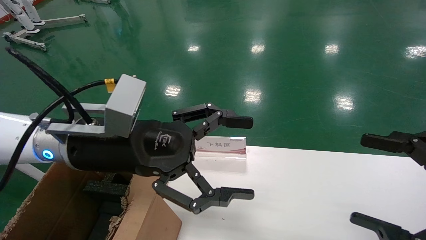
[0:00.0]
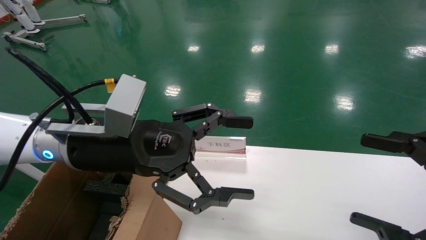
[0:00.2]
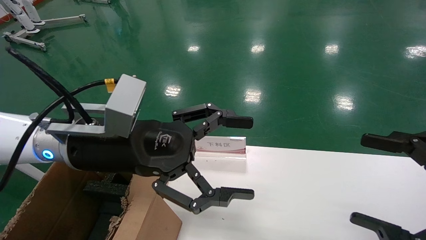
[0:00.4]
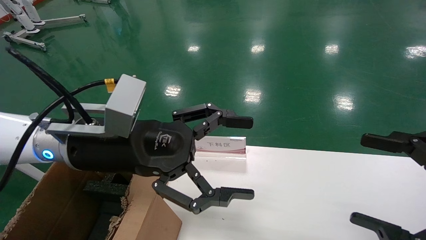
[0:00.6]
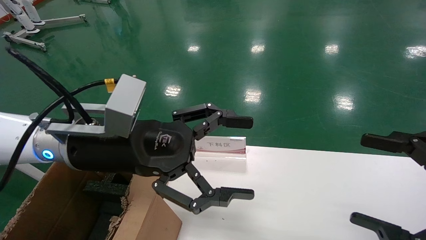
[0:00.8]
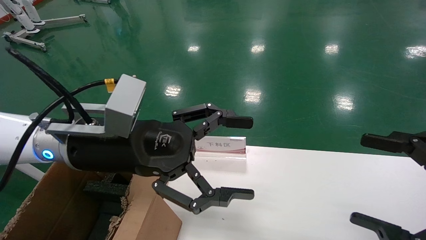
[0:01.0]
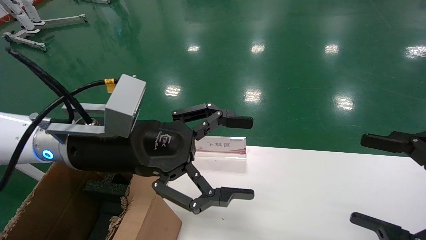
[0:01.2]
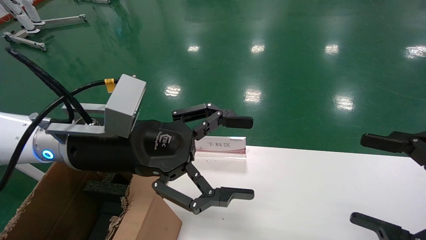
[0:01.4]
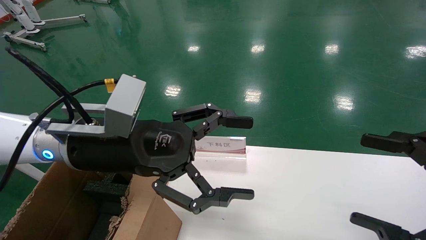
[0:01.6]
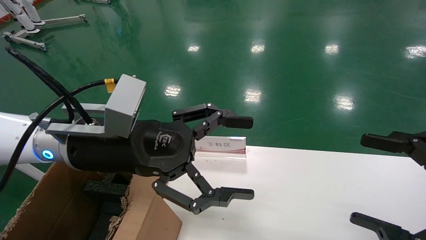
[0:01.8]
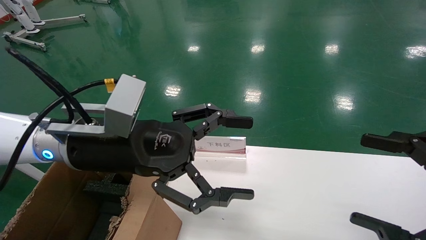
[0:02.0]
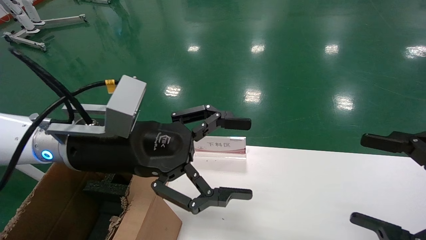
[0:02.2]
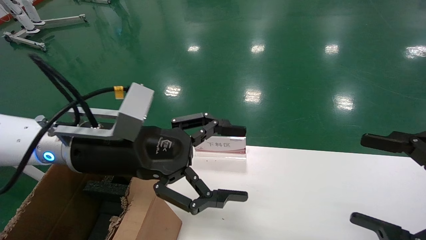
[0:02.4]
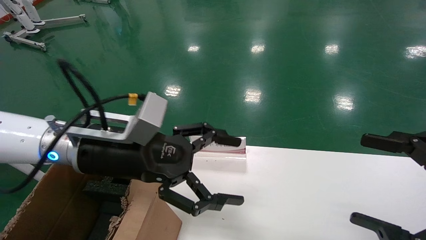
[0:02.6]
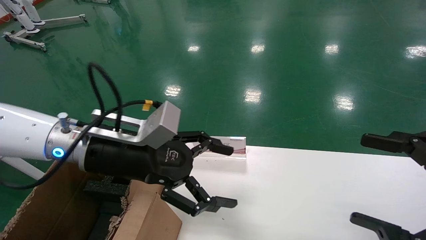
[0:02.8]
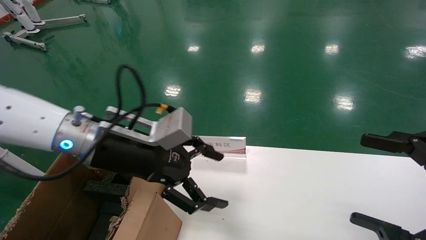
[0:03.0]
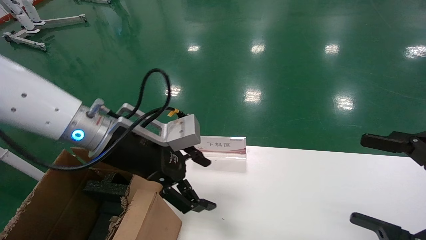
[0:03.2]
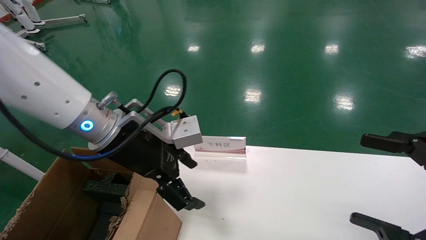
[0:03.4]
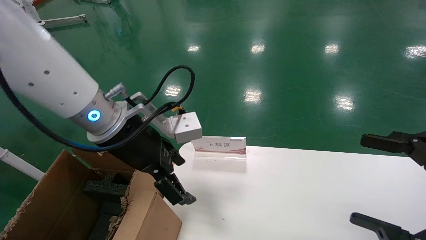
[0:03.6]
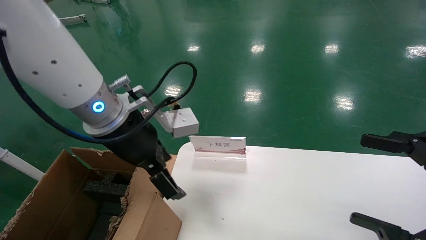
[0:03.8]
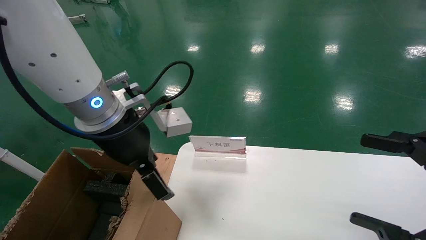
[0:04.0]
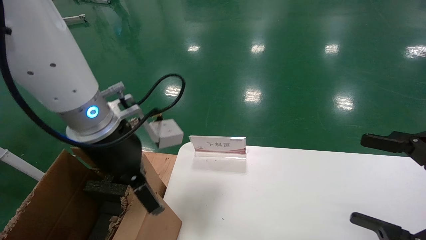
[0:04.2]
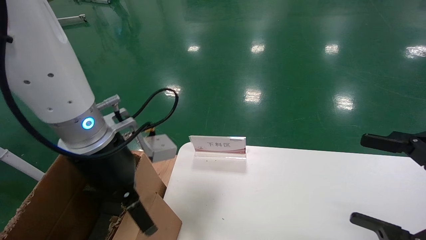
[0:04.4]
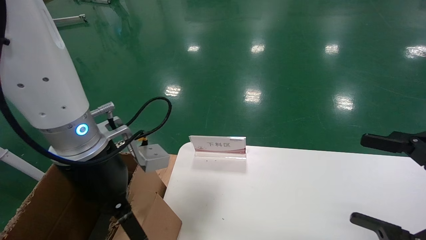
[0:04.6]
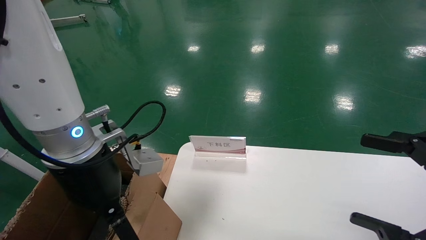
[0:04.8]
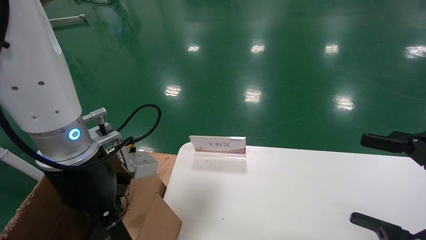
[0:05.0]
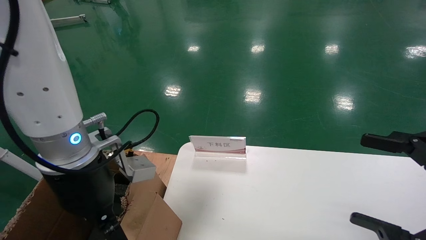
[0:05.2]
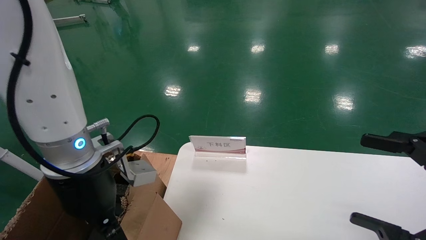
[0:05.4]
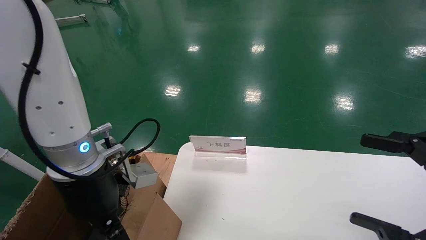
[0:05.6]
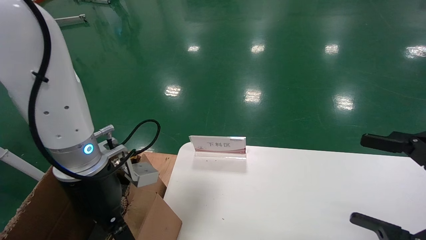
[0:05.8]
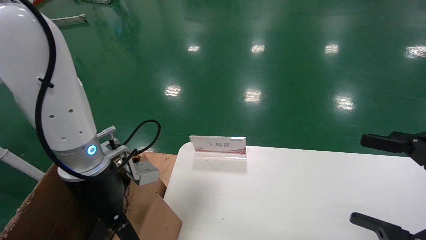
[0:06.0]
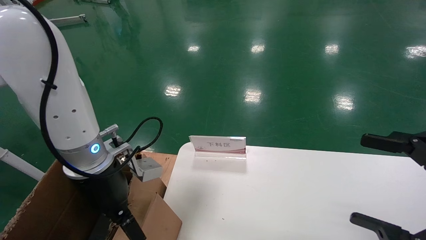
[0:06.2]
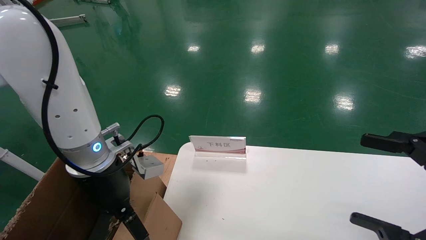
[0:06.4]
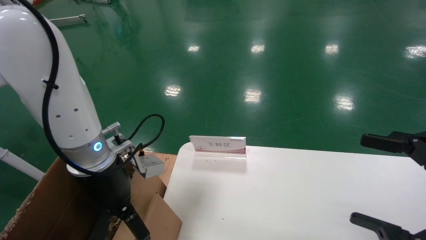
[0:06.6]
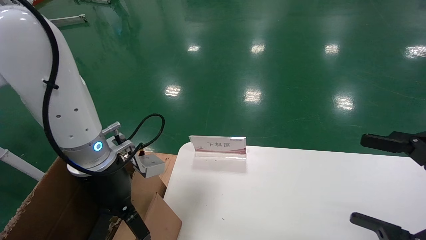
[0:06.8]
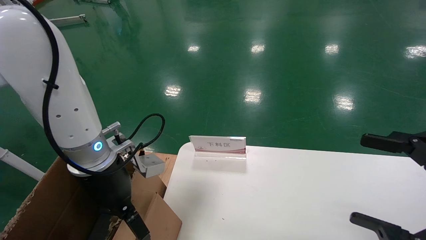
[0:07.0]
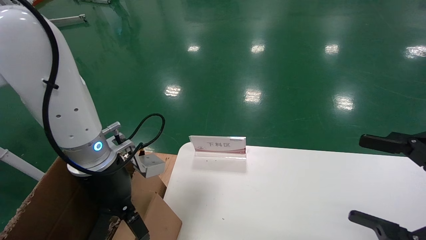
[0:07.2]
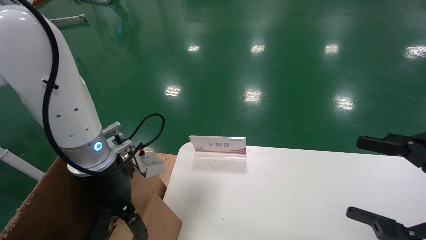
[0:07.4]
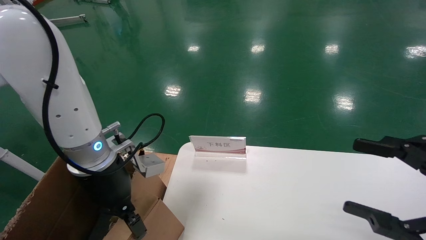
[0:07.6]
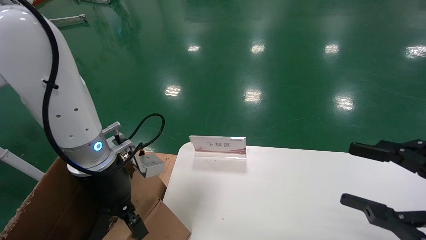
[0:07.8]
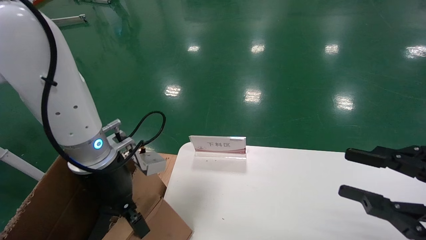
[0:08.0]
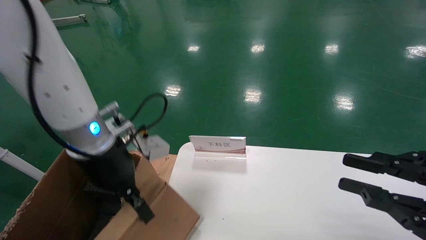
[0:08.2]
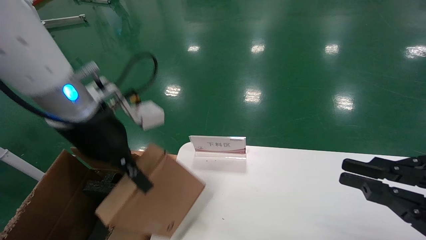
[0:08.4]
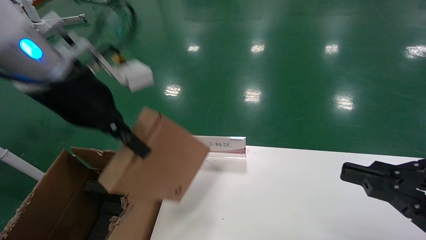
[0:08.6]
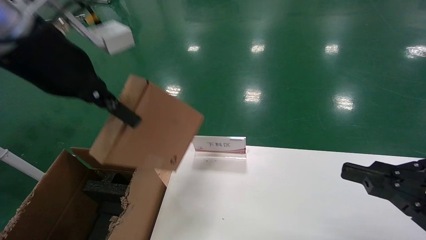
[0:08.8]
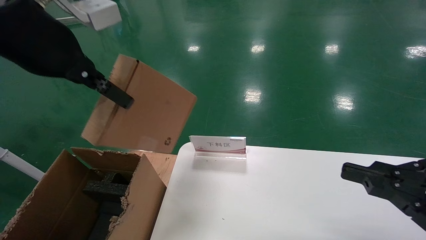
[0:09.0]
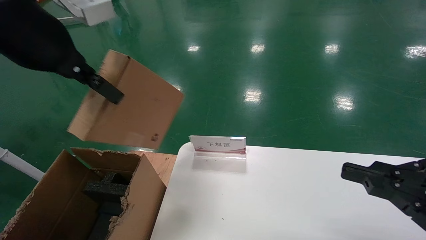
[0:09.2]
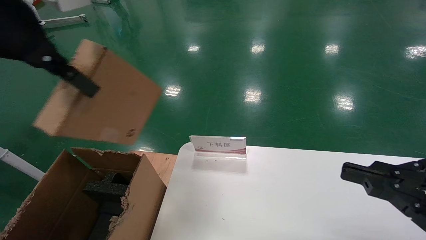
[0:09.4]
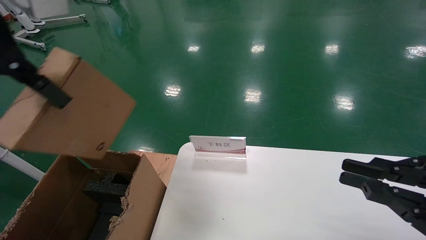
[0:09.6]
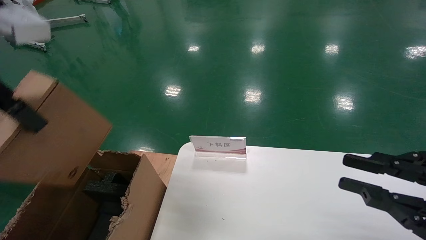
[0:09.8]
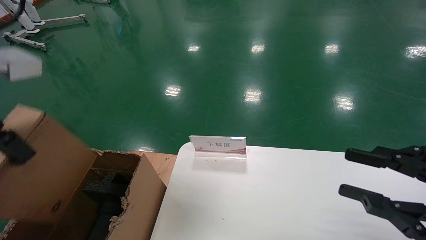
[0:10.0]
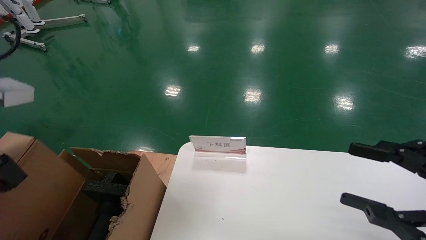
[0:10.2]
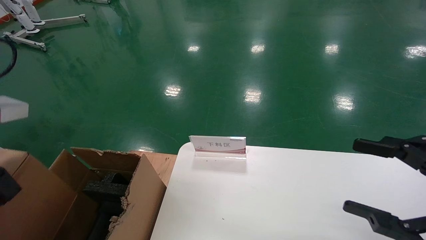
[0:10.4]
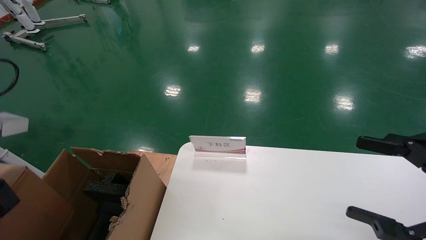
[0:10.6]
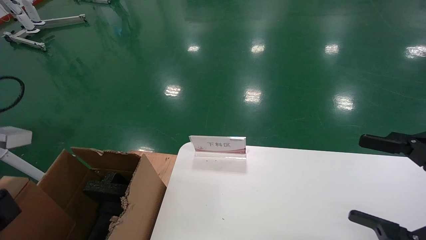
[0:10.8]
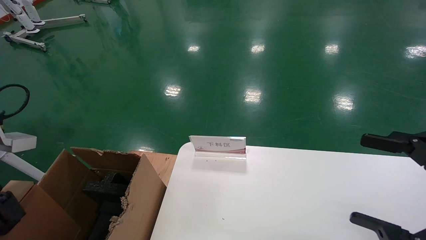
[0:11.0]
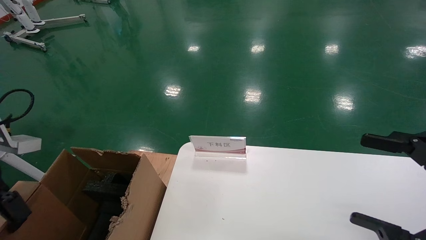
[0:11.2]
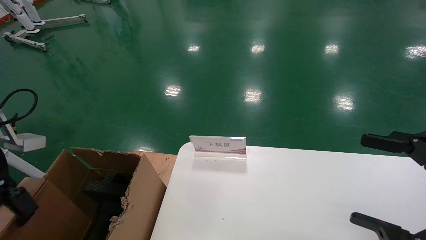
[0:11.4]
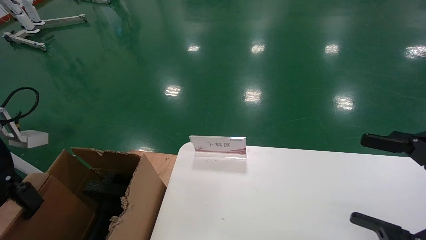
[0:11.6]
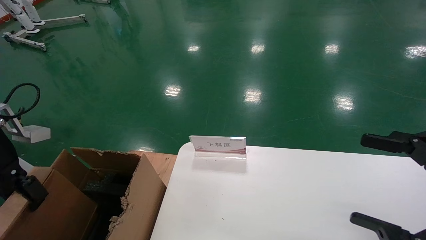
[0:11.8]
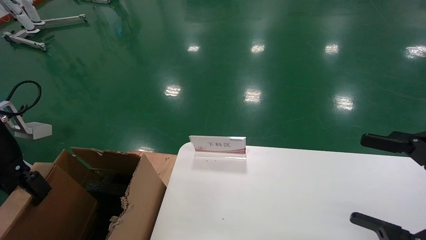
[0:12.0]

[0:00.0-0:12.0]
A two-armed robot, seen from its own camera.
Task of the whole recording: pick up the small cardboard box and load it into the large cardboard box.
Step, 0:00.0 to 0:07.6: Grasp the paper box.
0:00.0 to 0:01.6: The two grippers keep their place.
0:04.4 to 0:06.0: The left gripper heads downward, covering approximately 5 cm.
0:06.0 to 0:07.6: The left gripper closes its fingers.
0:07.6 to 0:09.0: The right gripper closes. Meanwhile the left gripper moves upward, approximately 20 cm, and closes up.
0:09.0 to 0:10.4: The left gripper moves to the left, downward and backward, about 15 cm. The right gripper opens up.
0:10.4 to 0:12.0: The left gripper shifts some 15 cm to the left, downward and forward, while the right gripper opens up.

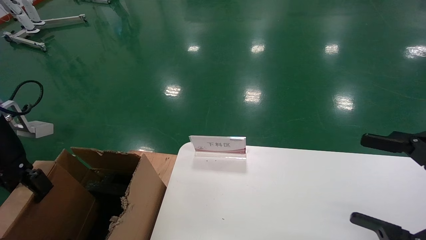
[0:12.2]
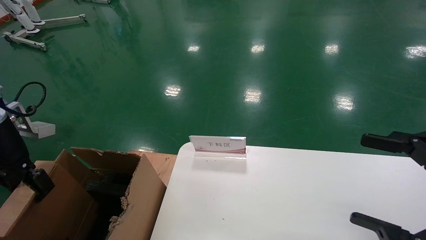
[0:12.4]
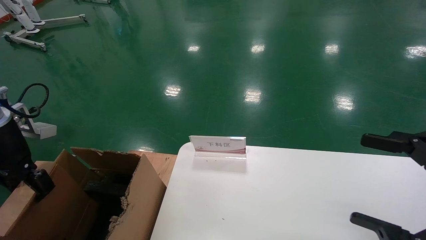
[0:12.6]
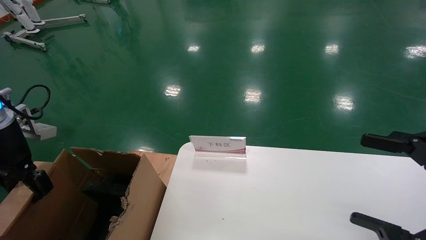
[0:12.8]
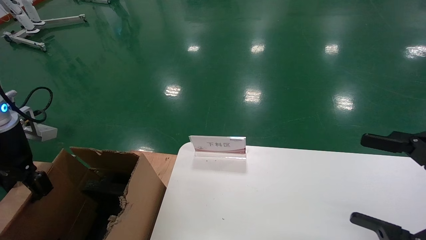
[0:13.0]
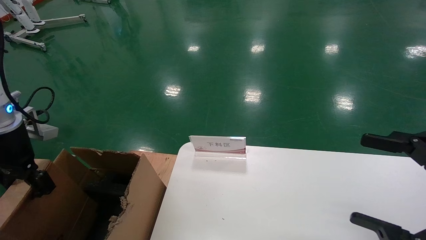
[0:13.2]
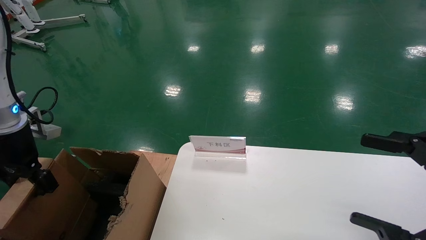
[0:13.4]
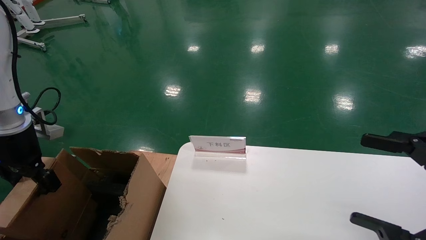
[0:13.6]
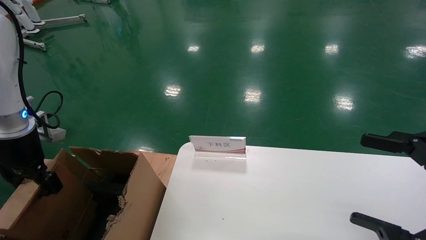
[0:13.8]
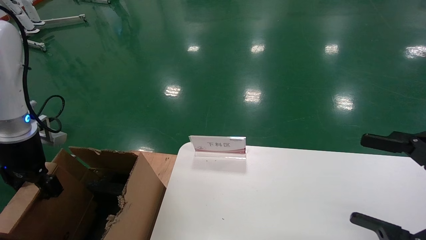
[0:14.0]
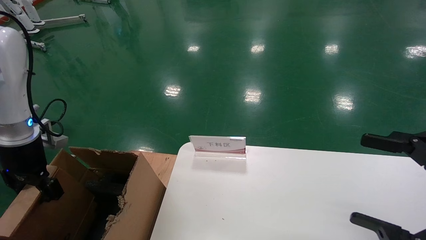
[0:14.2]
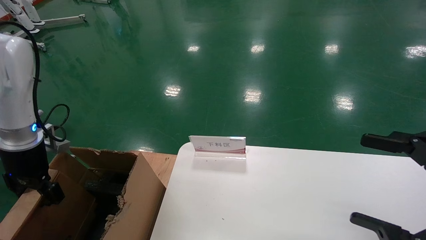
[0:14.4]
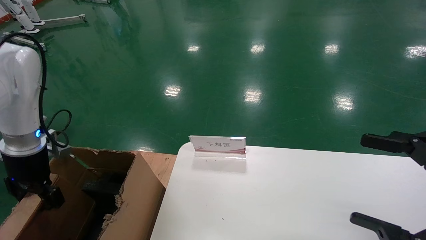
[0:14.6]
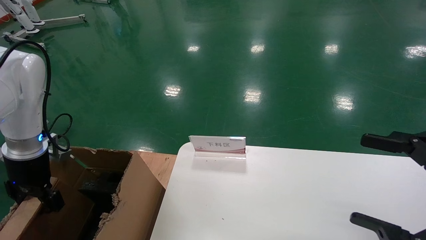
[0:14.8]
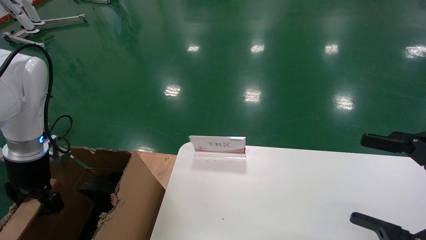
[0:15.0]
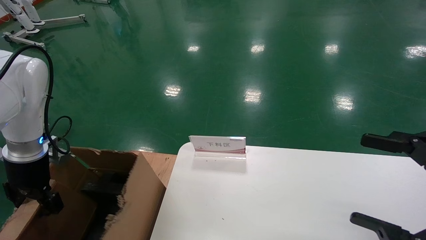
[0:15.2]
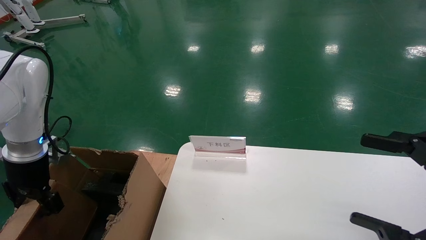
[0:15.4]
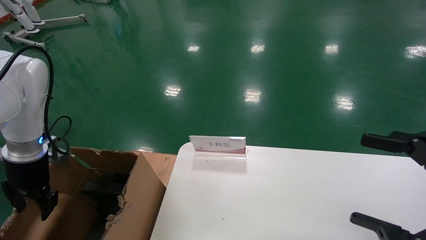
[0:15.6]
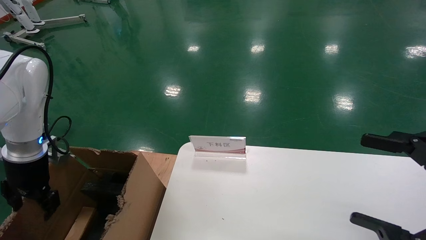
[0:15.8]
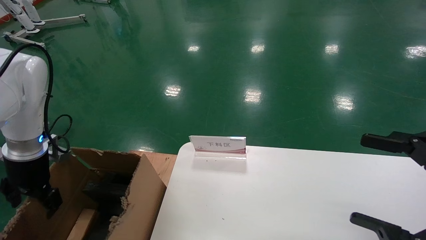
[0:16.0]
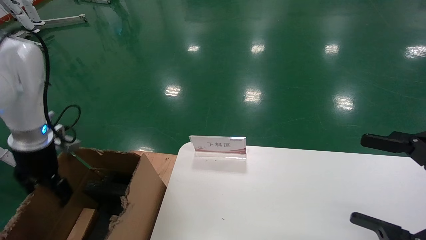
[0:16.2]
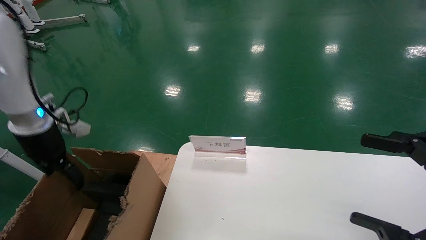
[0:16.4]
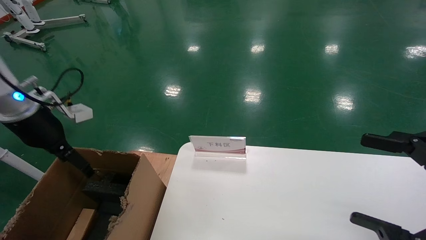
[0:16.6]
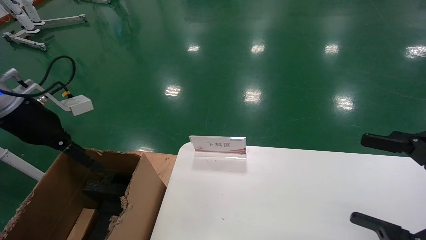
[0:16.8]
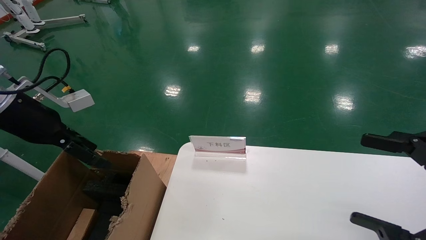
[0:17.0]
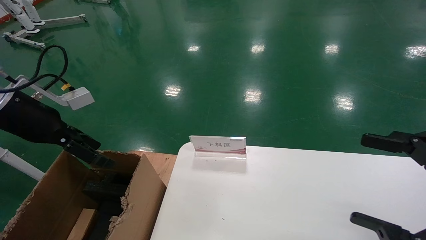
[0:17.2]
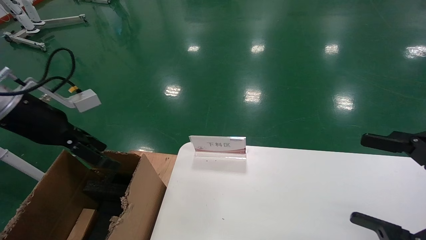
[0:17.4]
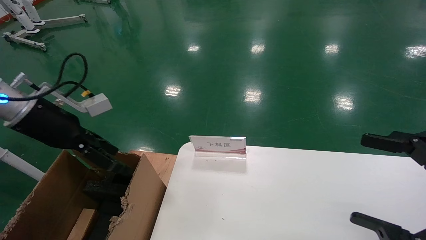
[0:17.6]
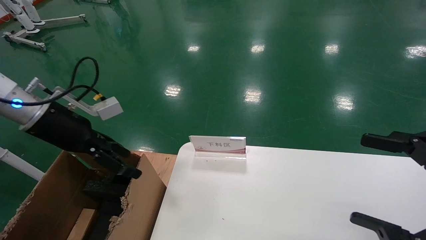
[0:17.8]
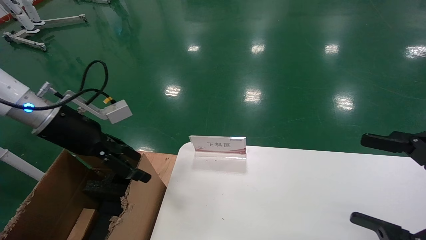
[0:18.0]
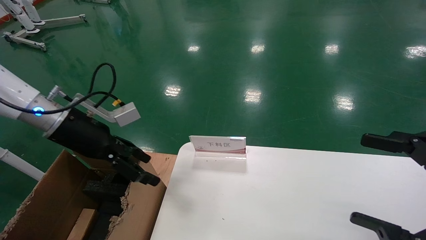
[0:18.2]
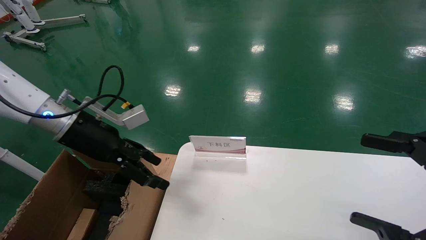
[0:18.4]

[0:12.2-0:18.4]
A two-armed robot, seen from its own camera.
Task of the whole recording: pick up the small cardboard box and load it into the large cardboard box.
Step, 0:12.2 to 0:15.6: Place the paper box in the another big box.
0:12.2 to 0:13.8: The left gripper changes place by some 5 cm.
0:13.8 to 0:15.4: The left gripper is displaced downward by about 5 cm.
0:15.4 to 0:16.8: The left gripper is displaced upward by roughly 10 cm, and opens up.
0:16.8 to 0:18.4: The left gripper travels to the right by roughly 10 cm.
